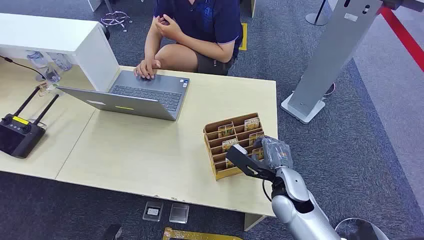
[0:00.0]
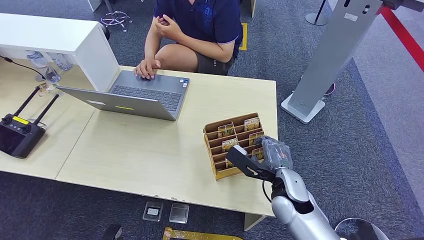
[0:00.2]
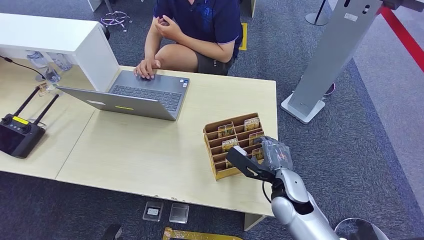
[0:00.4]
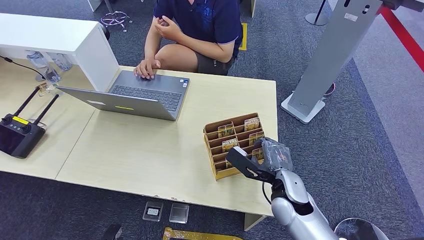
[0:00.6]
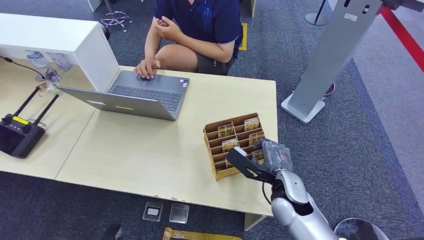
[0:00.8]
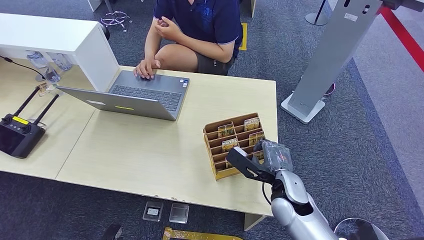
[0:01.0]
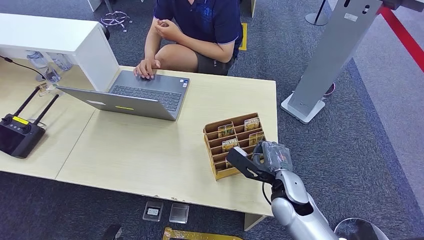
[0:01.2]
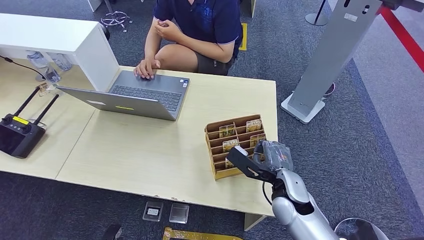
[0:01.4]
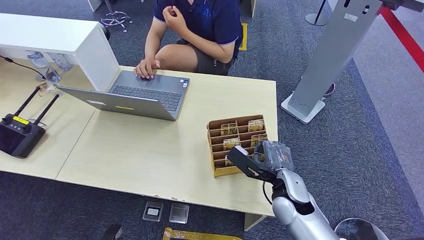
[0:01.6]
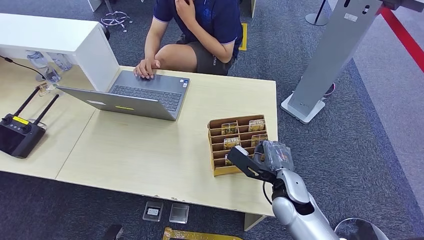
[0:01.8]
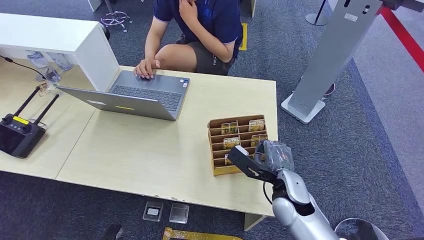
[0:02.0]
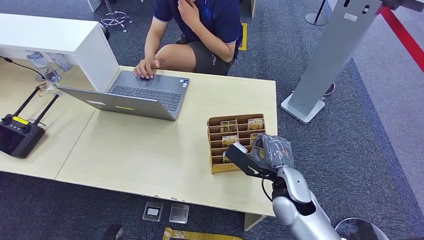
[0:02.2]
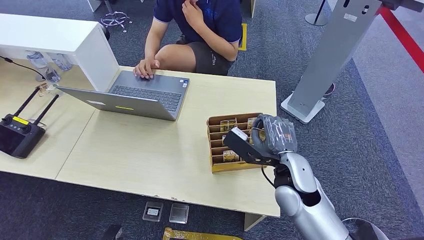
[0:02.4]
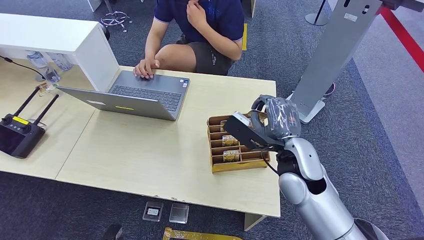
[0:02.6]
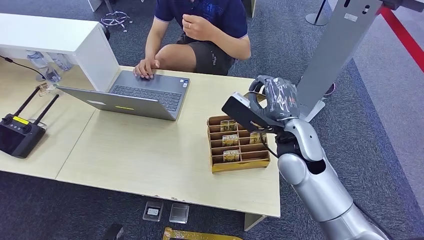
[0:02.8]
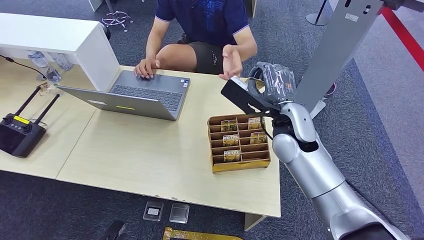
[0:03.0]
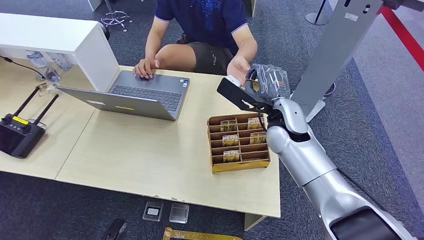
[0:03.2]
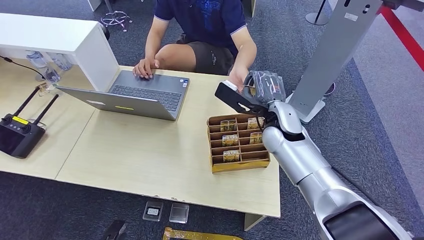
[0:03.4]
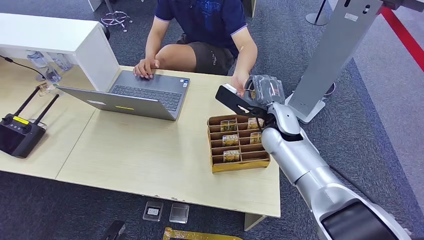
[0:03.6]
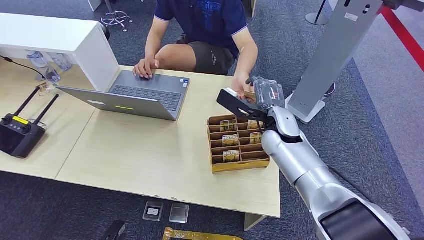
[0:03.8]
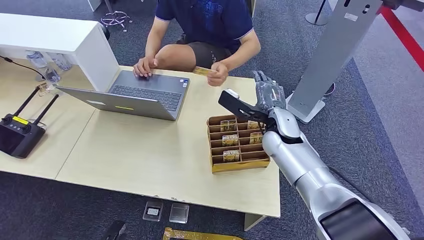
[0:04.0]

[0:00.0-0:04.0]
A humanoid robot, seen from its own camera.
Step, 0:00.0 to 0:02.4: Pick up the key card from the card box.
Step, 0:03.2 to 0:03.8: Hand the key card to the target.
0:01.4 to 0:02.6: The right hand heads upward, covering approximately 10 cm.
0:02.6 to 0:04.0: The right hand heads forward, covering some 10 cm.

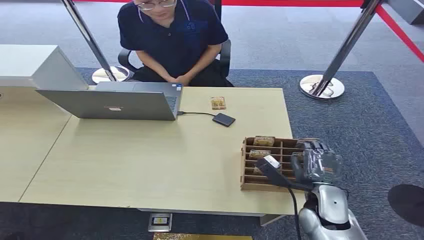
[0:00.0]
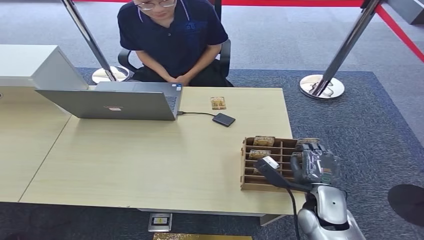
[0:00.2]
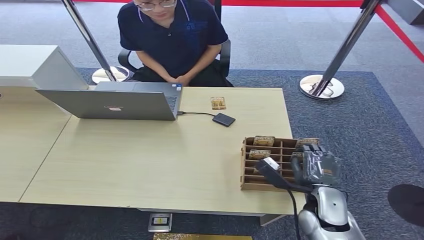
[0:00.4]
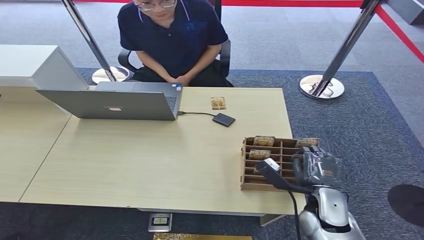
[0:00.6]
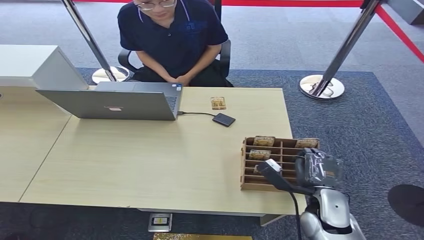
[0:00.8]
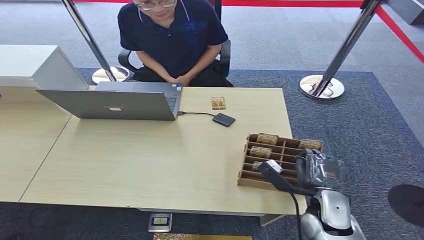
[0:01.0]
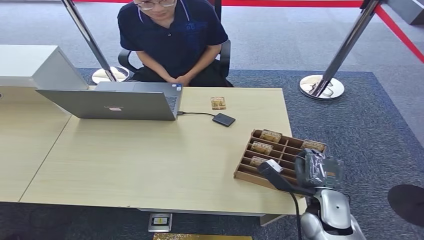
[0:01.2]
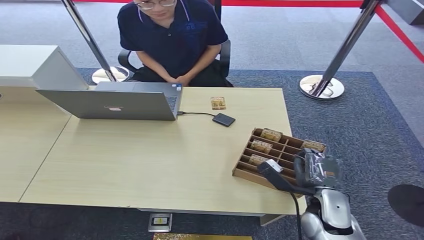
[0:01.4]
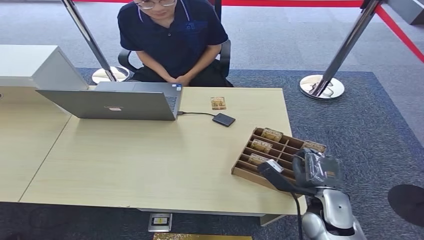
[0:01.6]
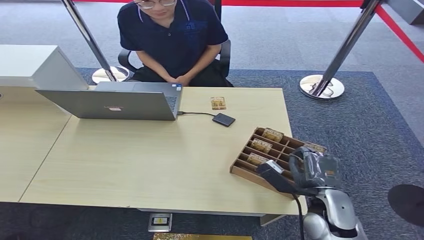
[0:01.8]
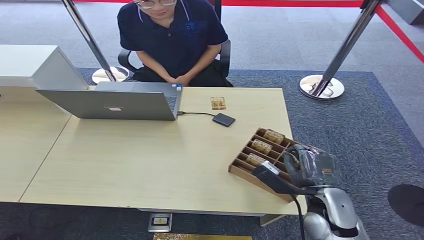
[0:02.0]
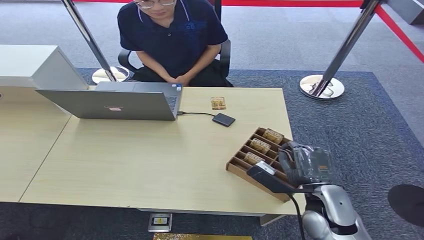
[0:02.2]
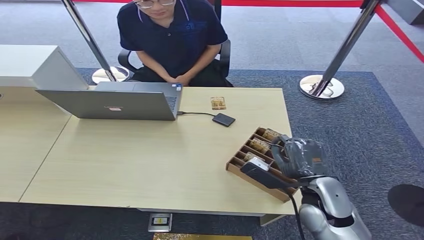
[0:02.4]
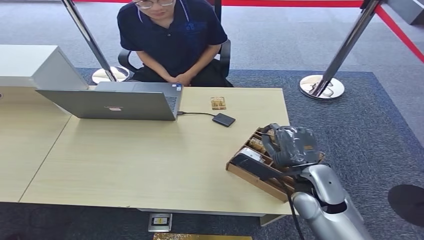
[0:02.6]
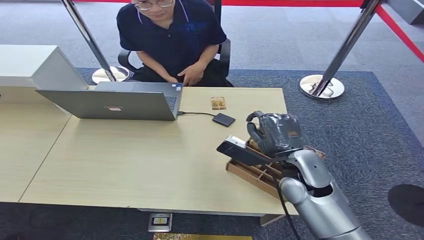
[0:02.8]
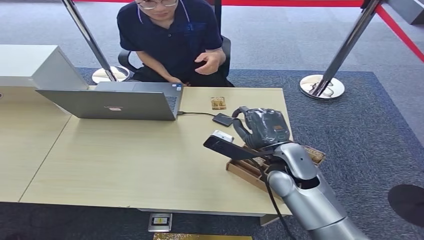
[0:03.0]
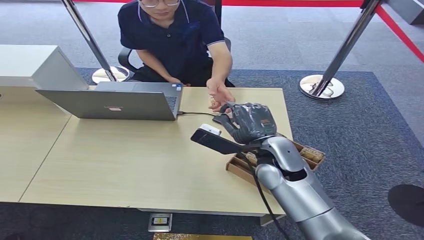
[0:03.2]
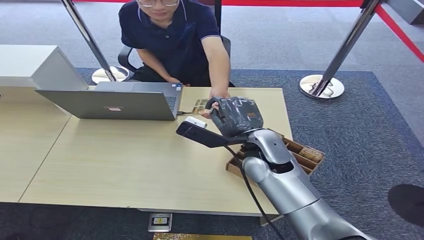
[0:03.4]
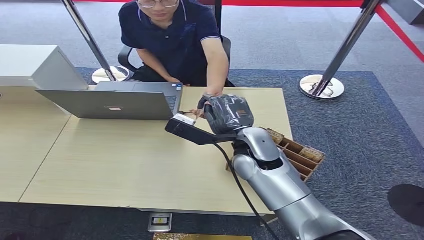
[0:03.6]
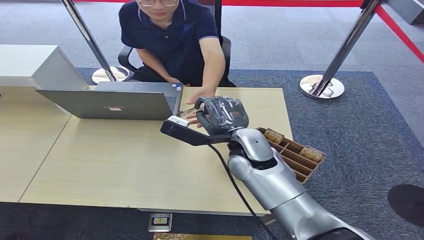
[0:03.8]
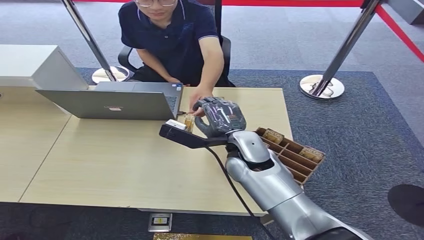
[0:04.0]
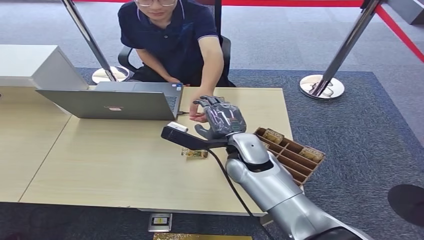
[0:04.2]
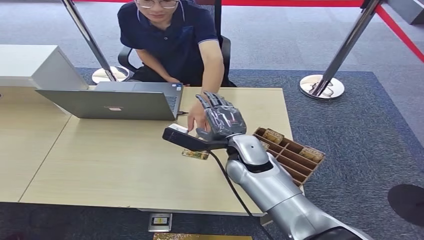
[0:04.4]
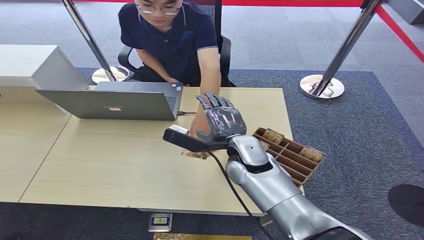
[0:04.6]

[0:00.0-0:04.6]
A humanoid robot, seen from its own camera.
Step, 0:00.0 to 0:02.6: Pick up the key card from the card box.
Step, 0:02.8 to 0:04.6: Hand the key card to the target.
0:01.6 to 0:03.0: The right hand is displaced upward, forward and to the left by roughly 15 cm.
0:03.0 to 0:04.6: The right hand is displaced to the left by some 10 cm.
